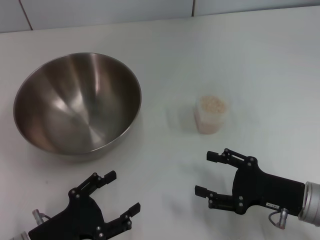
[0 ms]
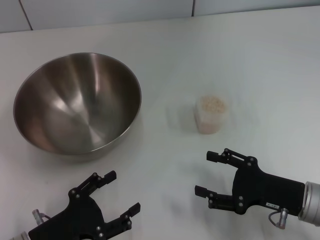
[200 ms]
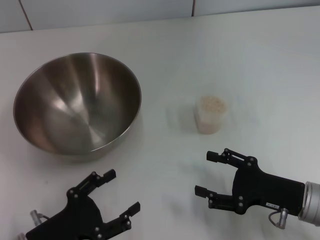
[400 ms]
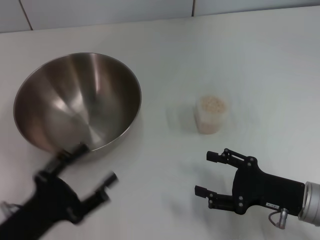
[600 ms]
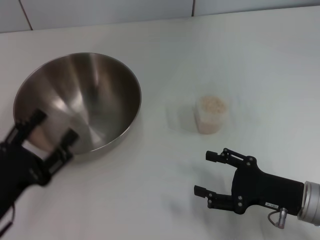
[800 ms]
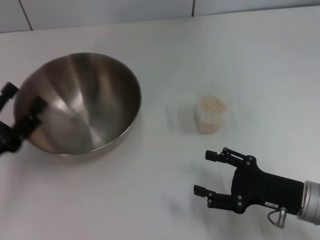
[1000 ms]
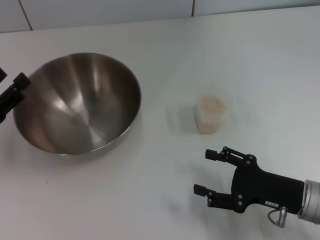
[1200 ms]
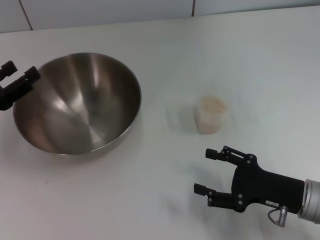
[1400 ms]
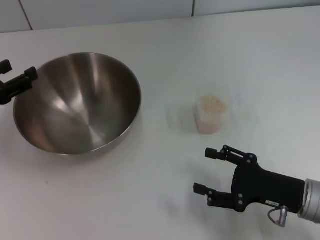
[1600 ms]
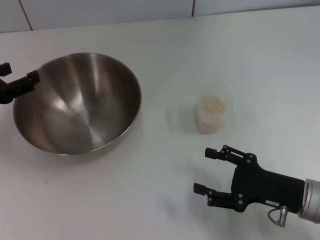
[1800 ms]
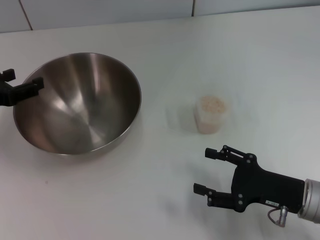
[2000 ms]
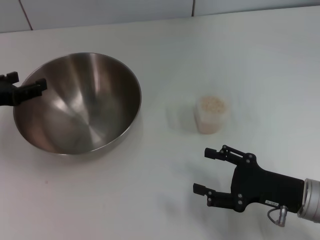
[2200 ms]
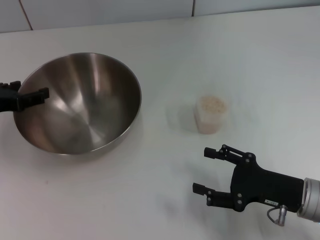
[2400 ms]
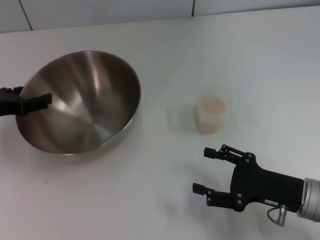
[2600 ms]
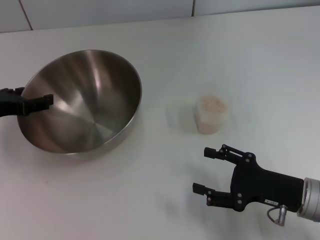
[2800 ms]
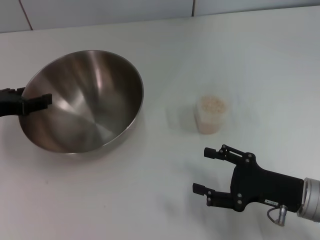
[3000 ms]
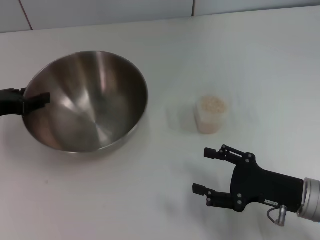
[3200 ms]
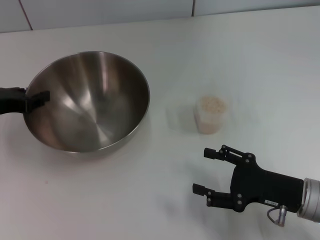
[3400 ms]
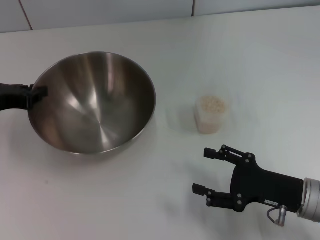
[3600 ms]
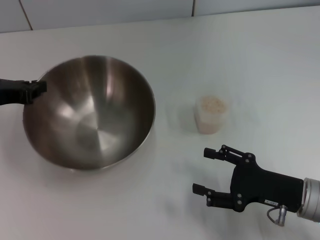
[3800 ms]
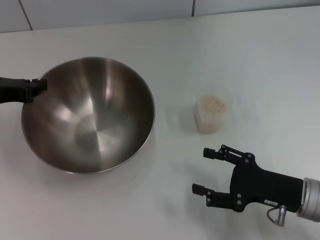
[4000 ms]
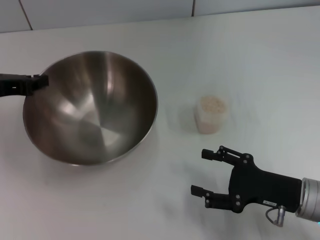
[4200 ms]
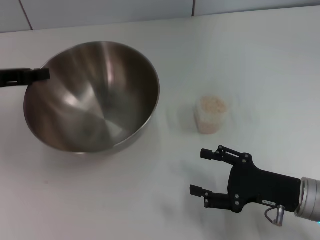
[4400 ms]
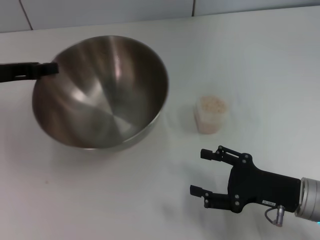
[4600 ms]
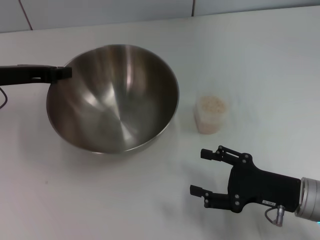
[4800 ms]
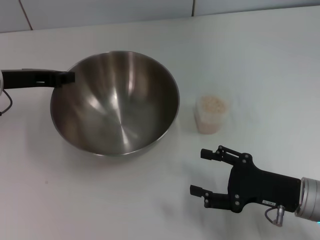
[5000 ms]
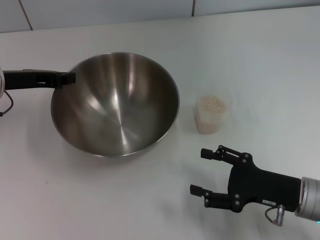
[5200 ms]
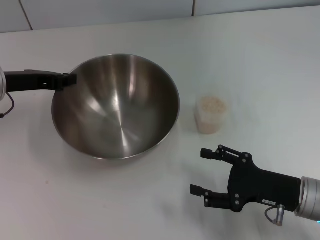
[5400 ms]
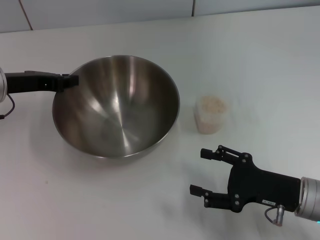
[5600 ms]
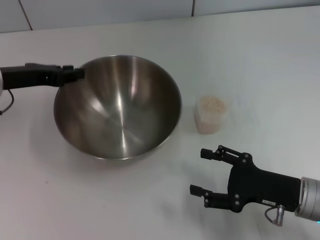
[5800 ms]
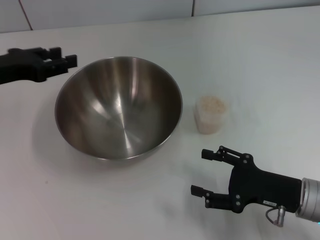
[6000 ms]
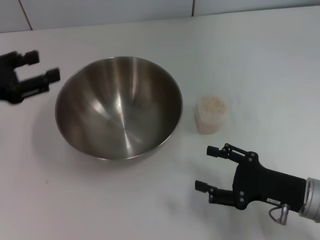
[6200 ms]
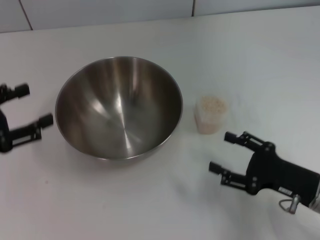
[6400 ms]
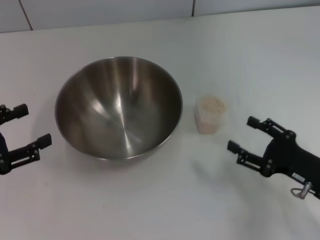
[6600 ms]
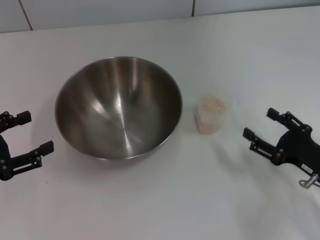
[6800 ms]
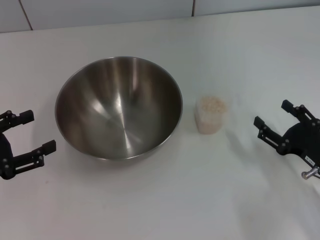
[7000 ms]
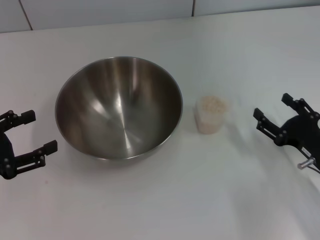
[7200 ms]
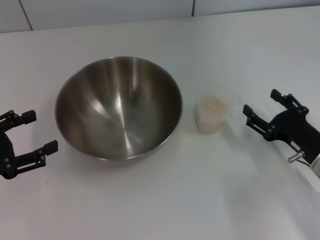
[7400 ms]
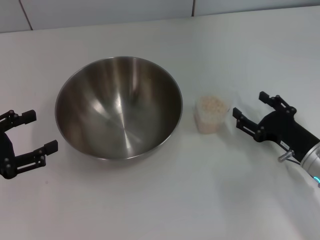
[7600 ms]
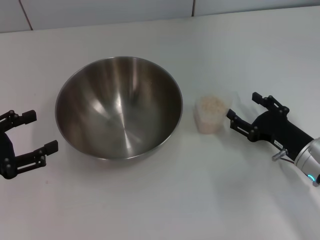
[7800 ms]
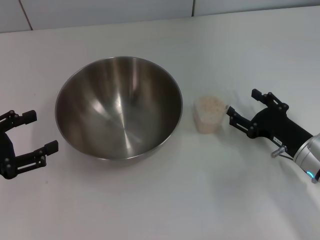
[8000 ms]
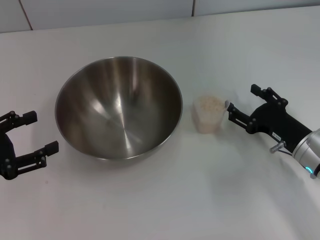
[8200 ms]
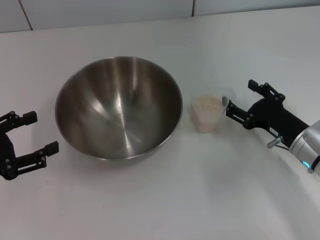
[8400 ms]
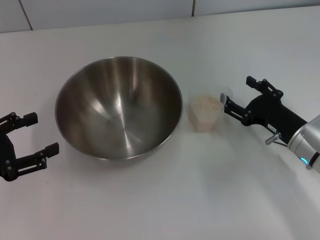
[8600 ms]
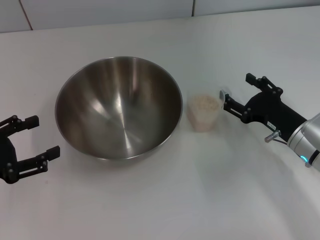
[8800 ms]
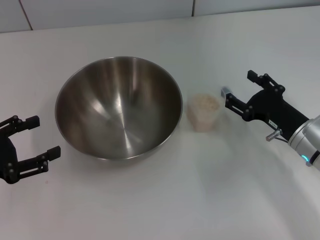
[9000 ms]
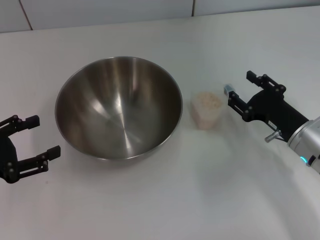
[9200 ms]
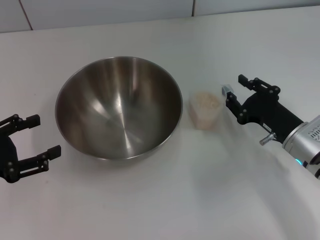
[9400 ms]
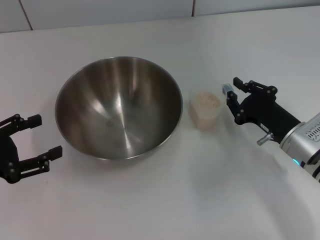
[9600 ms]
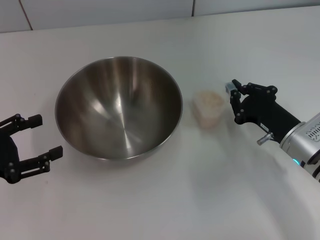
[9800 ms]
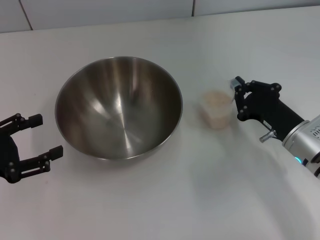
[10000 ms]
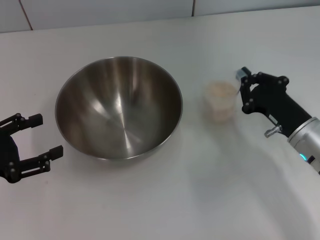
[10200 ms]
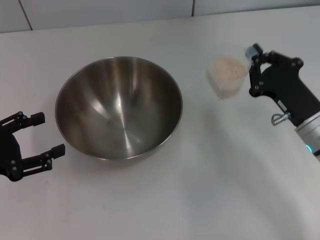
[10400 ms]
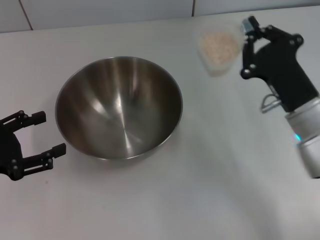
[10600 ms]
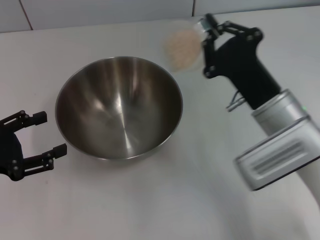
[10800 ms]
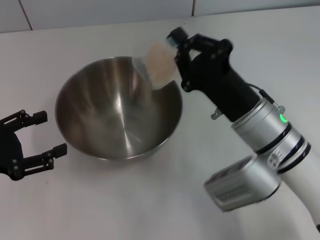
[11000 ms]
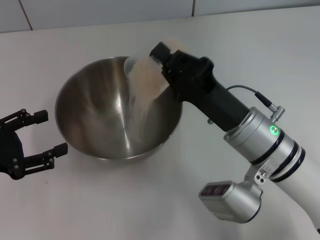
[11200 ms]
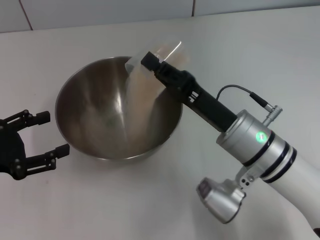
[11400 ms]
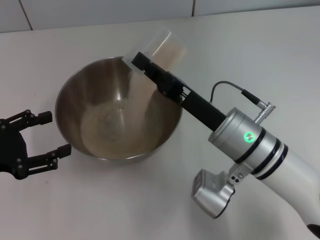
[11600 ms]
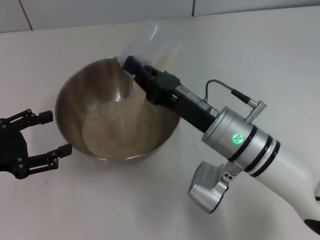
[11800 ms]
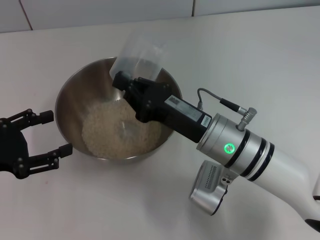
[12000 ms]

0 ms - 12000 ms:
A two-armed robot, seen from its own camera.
Task of the whole recording: Place the bowl in the middle of the table with one hand and pour the rice from the grain cup into it with the other hand.
Step, 0 ms - 4000 ms: Pick up the bowl with the left gripper.
Step, 4200 ms - 6200 ms: Place the bowl in the center of view with the left gripper.
Step, 6400 ms - 10600 ms: Pick up the cup with rice in it with the right gripper.
0 ms - 1600 ms: The left gripper shifts about 20 cm forward, upward and to the left.
1600 ms - 3000 ms: The grippers move only a little.
3000 ms - 4400 ms: The left gripper closes.
4400 ms - 6000 ms: The left gripper opens its fingers.
6000 ms - 7600 ms: The left gripper travels backward and downward by roughly 10 cm, and opens its fingers. The right gripper ends up some 5 cm from where it was.
7600 ms - 9000 ms: The grippers stay close to where they were, moving slightly.
9000 ms - 10400 ms: The right gripper closes up.
10400 ms - 12000 ms: The right gripper heads to the left, covering about 15 cm.

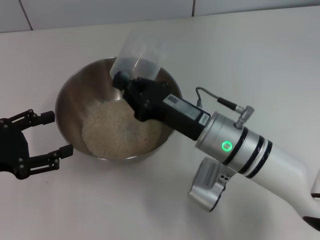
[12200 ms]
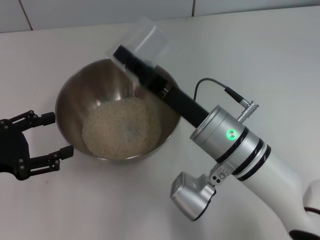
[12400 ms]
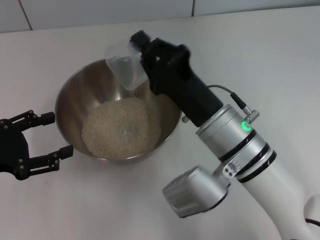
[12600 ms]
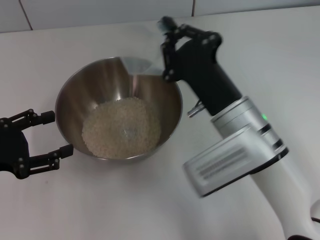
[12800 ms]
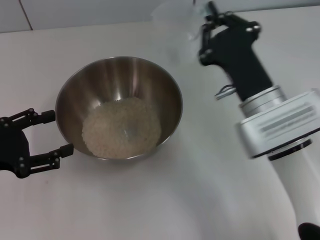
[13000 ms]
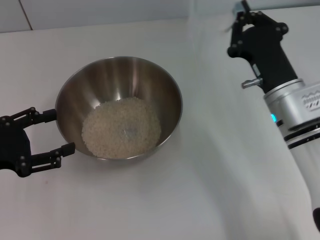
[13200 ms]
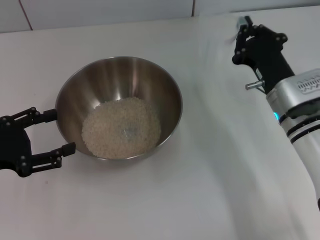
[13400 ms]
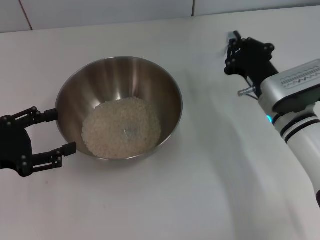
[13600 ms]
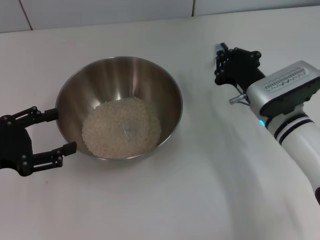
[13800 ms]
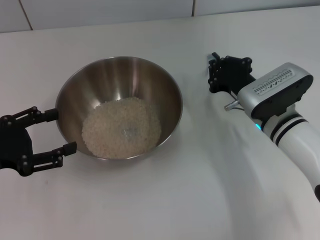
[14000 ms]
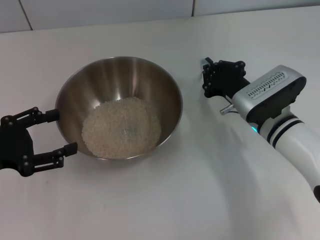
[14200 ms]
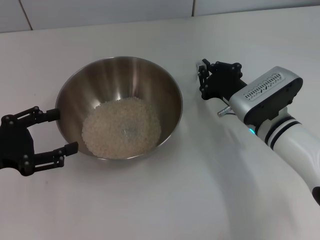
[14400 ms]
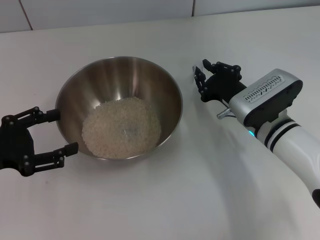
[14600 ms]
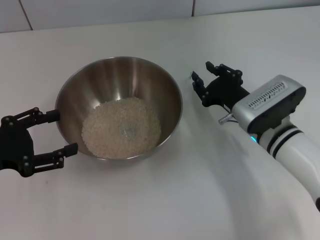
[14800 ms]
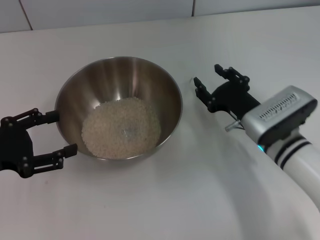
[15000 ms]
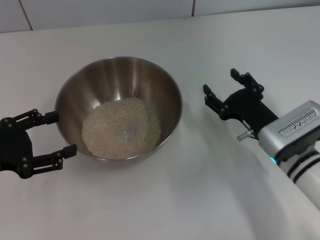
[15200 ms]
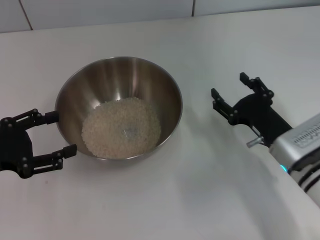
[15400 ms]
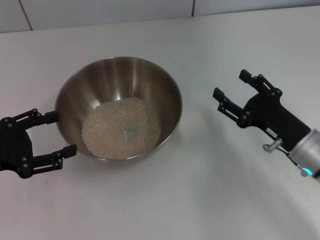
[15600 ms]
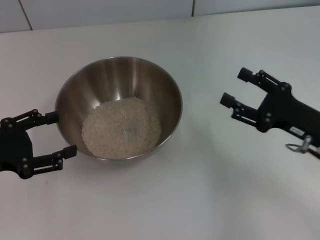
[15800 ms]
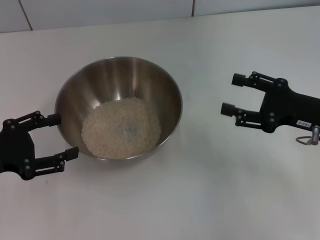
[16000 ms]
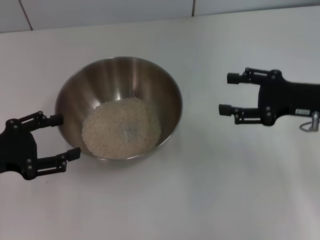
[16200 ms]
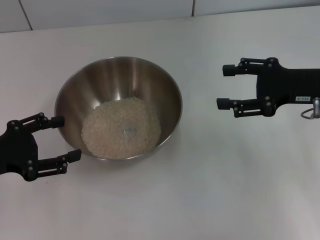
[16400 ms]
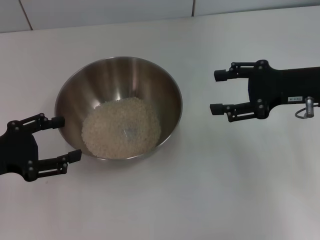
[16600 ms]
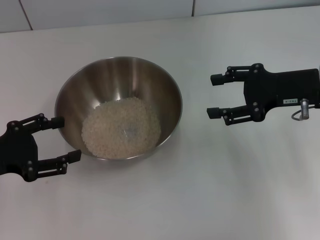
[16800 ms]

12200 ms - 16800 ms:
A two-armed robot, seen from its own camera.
Task of the whole recording: Place the bowl in the middle of the table with one hand and pour the rice from the grain cup into it with the other hand.
Step, 12800 ms - 15200 ms: Place the cup on the table with the right gripper.
12200 ms - 13800 ms: The right gripper is displaced to the right and forward by approximately 10 cm.
13800 ms - 15200 ms: The right gripper goes about 5 cm backward, and opens.
15200 ms - 16800 ms: The right gripper is displaced upward and to the right by approximately 15 cm.
